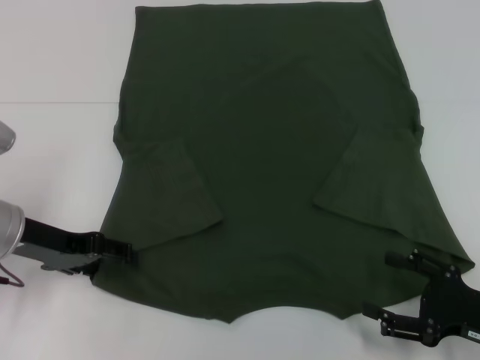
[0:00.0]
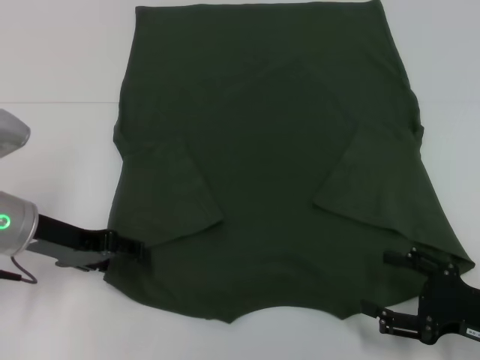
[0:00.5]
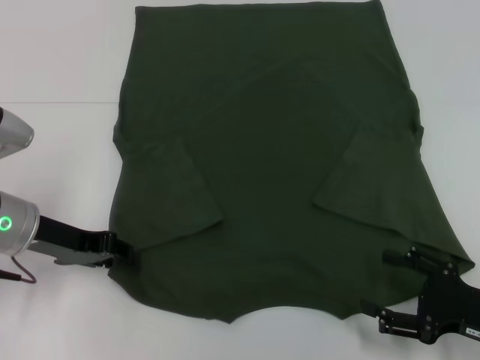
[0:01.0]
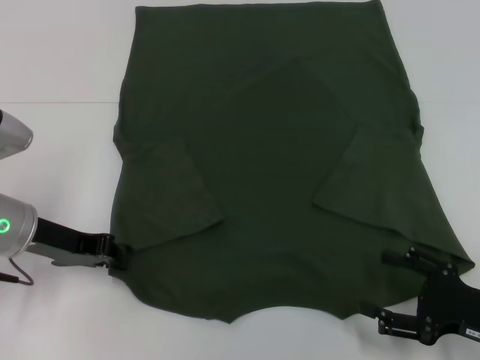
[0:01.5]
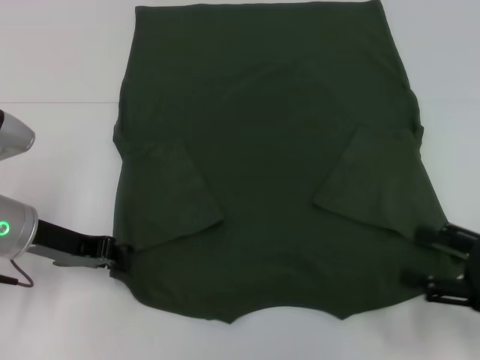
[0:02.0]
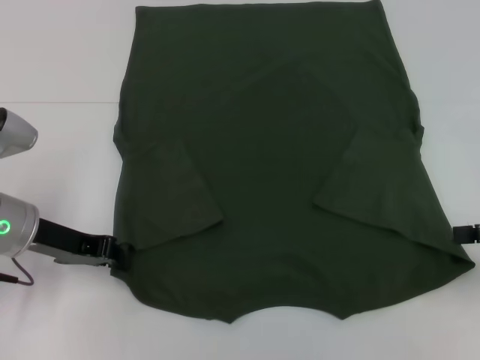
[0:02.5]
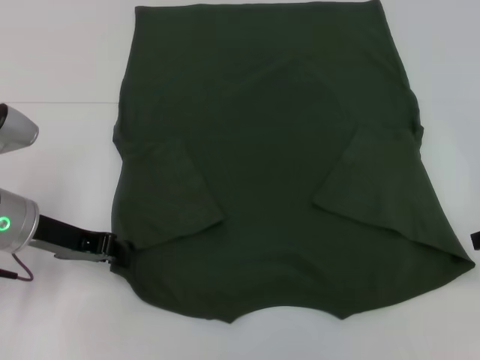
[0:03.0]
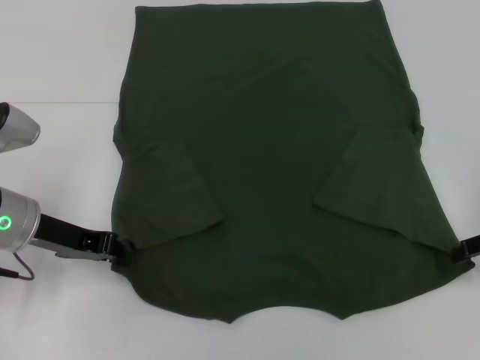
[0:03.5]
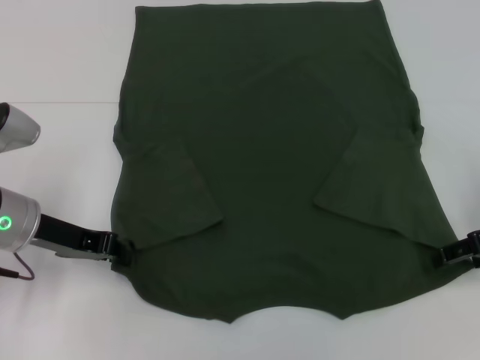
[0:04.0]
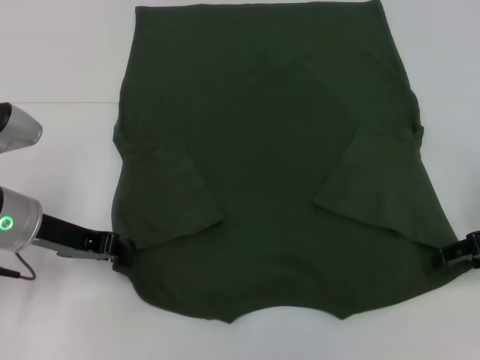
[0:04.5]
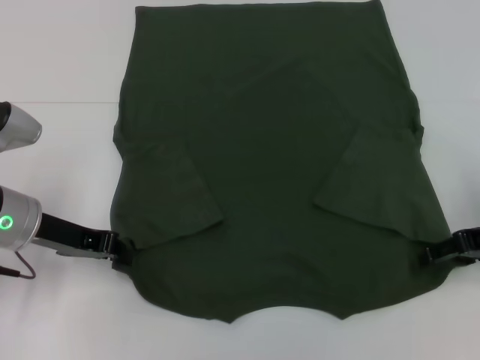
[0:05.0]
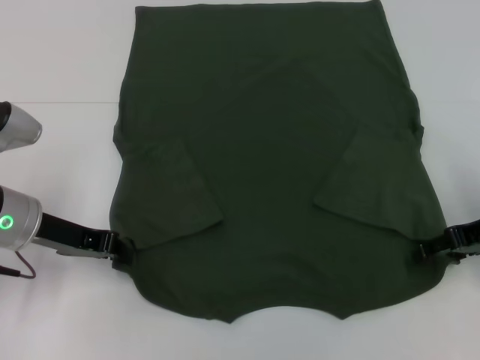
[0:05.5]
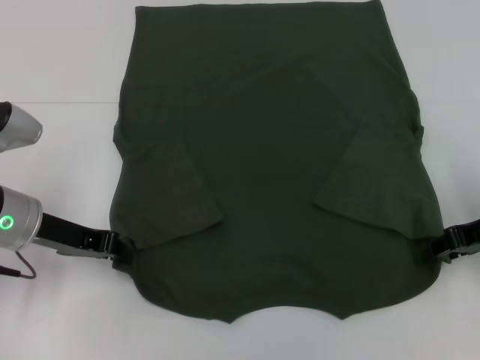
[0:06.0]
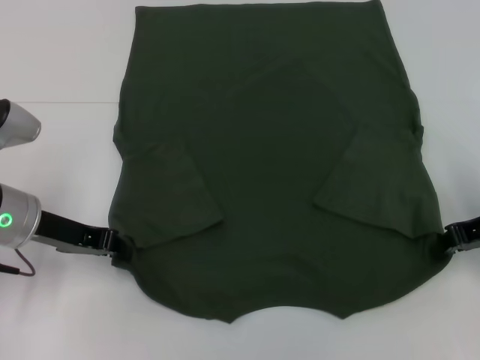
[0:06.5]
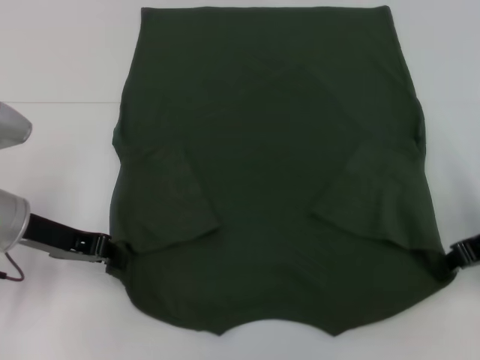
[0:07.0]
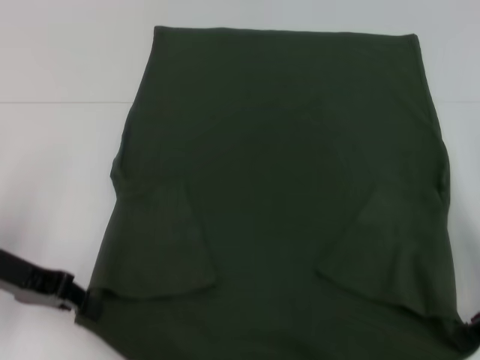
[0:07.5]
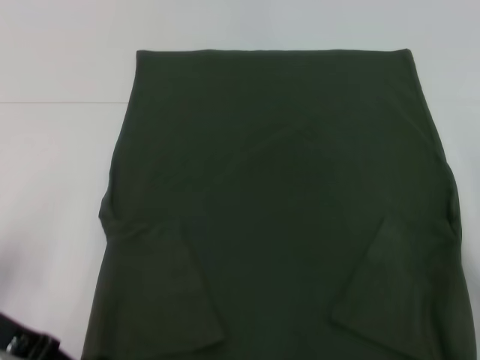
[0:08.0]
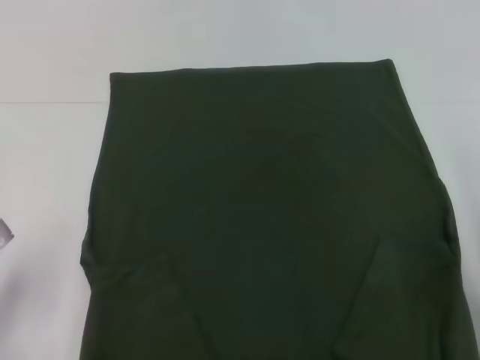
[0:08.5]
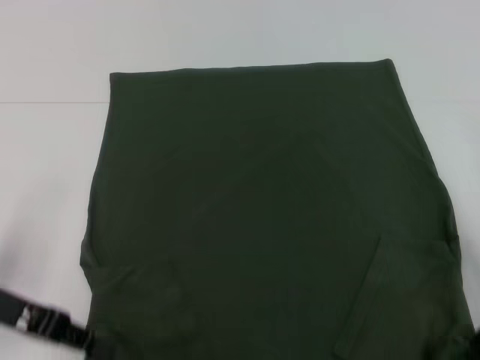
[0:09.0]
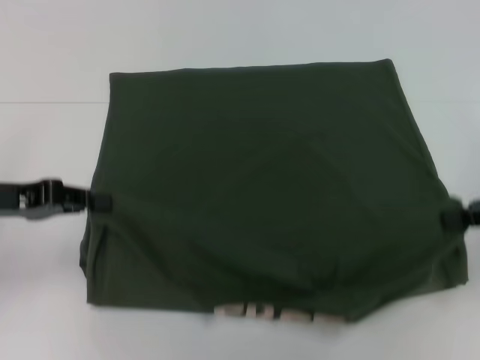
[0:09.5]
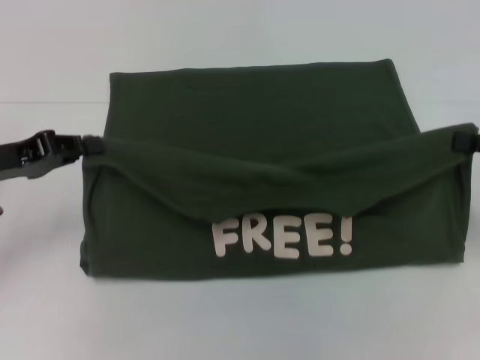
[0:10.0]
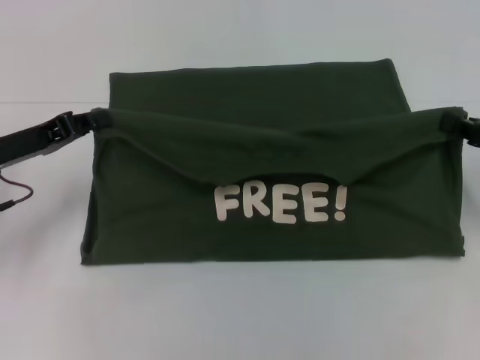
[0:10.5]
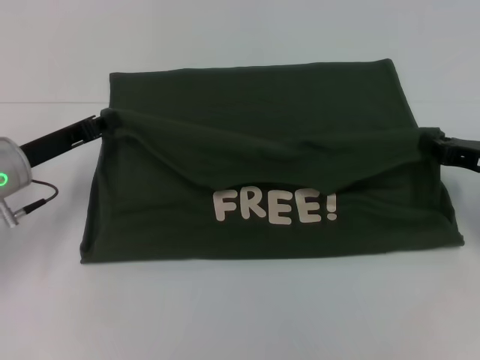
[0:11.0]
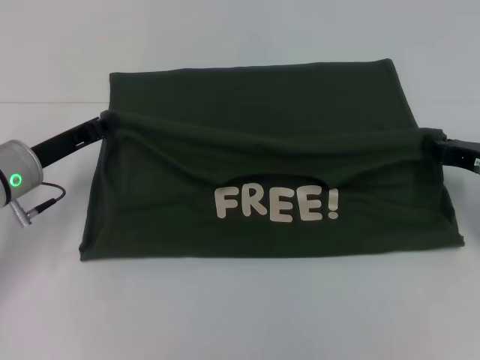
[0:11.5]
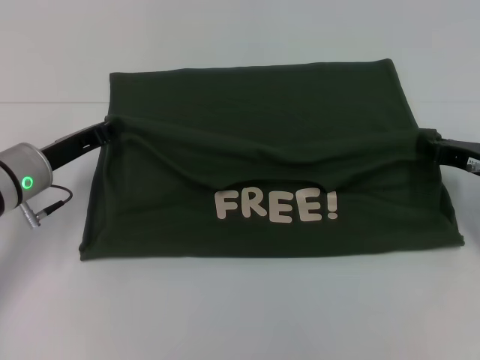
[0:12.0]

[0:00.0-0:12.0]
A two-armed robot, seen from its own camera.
Step, 0:03.0 to 0:06.0: Grab the bottom right corner with your right hand.
0:00.0 to 0:02.0: The left gripper closes. The right gripper moves upward, roughly 5 cm.
0:02.0 to 0:04.0: The right gripper goes some 10 cm forward.
0:04.0 to 0:06.0: The grippers stay close to where they were, moving slightly.
0:06.0 to 0:08.0: Both grippers travel together backward, about 5 cm. The right gripper closes up.
0:08.0 to 0:10.0: The left gripper shifts some 5 cm forward. The right gripper is displaced to the right by roughly 5 cm.
0:10.0 to 0:12.0: The right gripper is displaced downward and to the left by roughly 10 cm. Meanwhile the left gripper travels to the right and downward by about 10 cm.

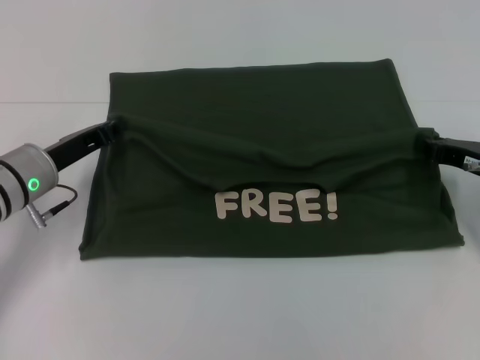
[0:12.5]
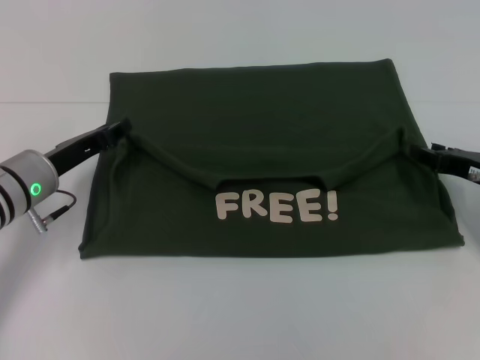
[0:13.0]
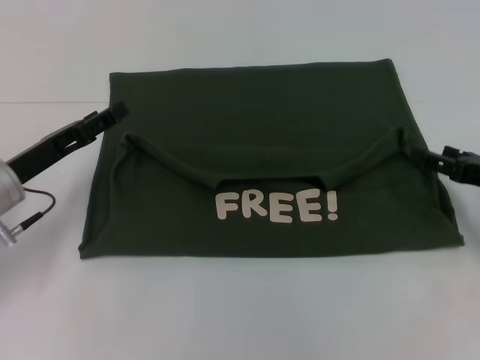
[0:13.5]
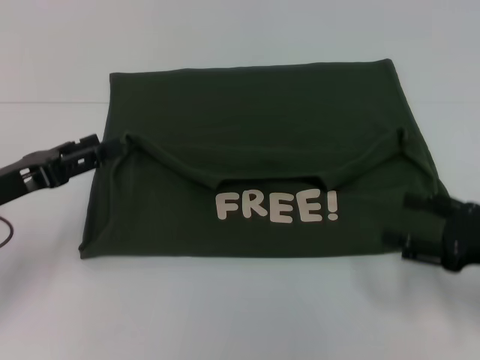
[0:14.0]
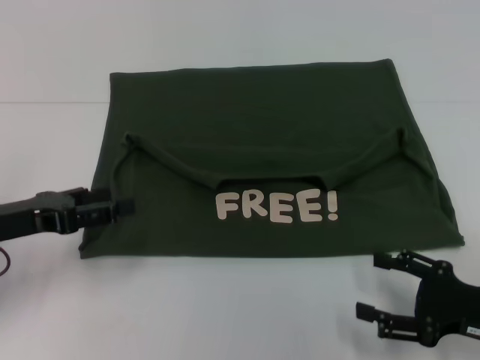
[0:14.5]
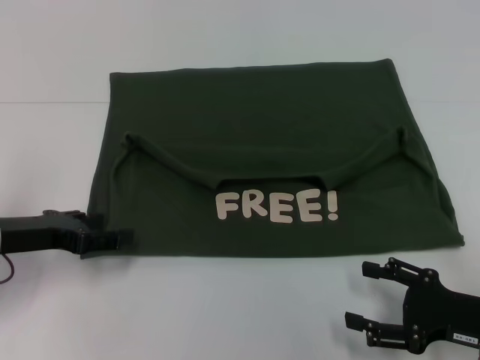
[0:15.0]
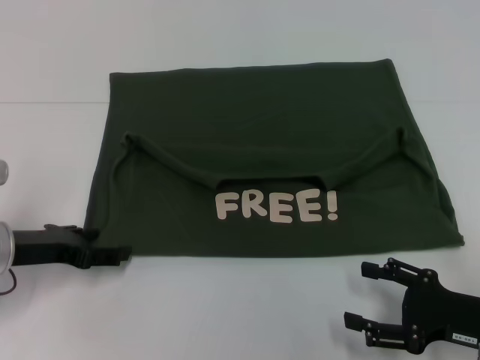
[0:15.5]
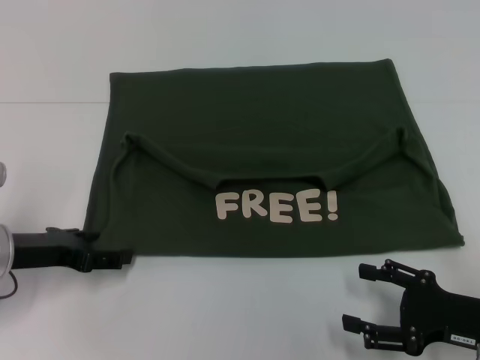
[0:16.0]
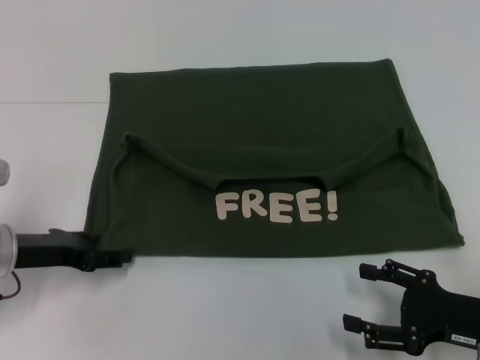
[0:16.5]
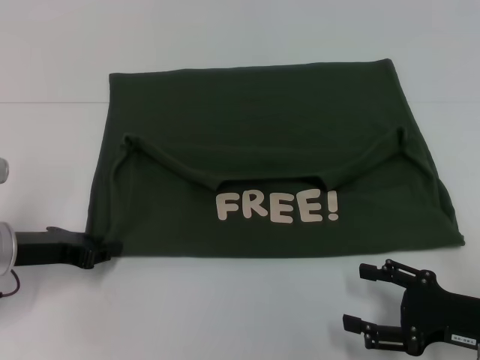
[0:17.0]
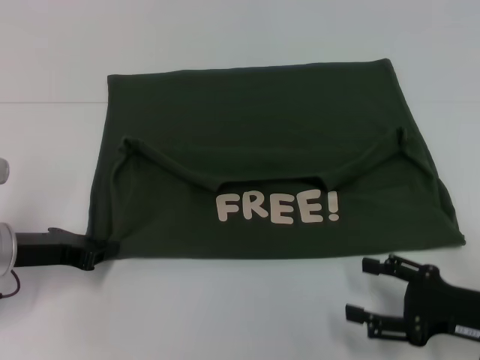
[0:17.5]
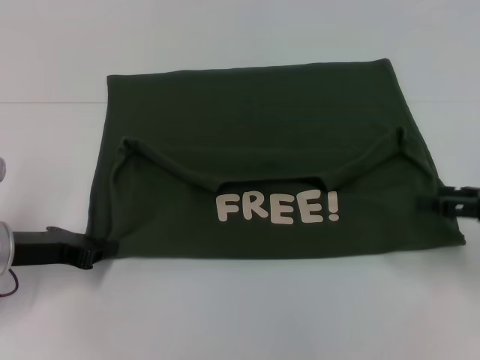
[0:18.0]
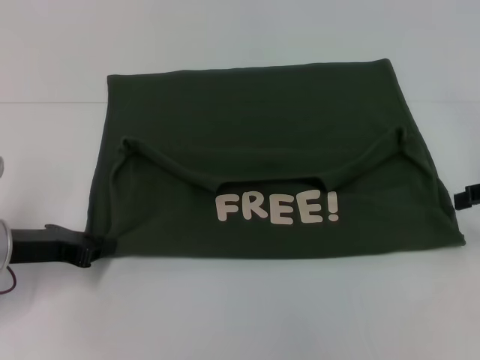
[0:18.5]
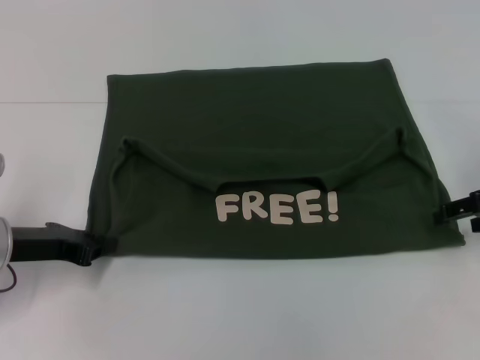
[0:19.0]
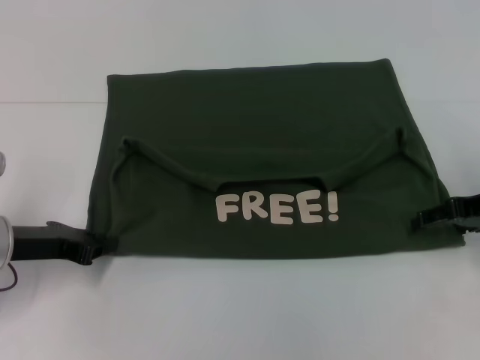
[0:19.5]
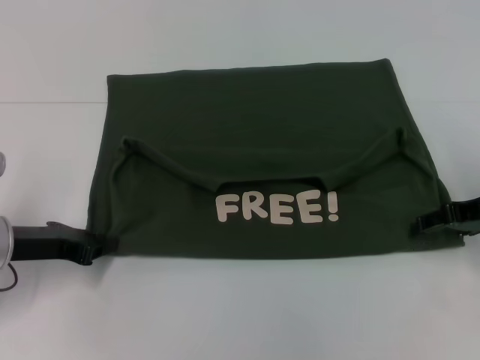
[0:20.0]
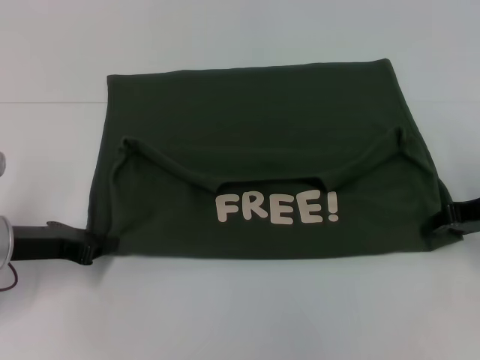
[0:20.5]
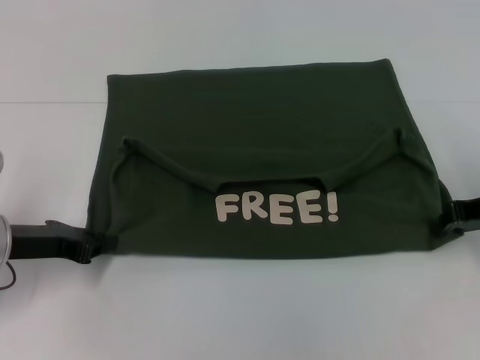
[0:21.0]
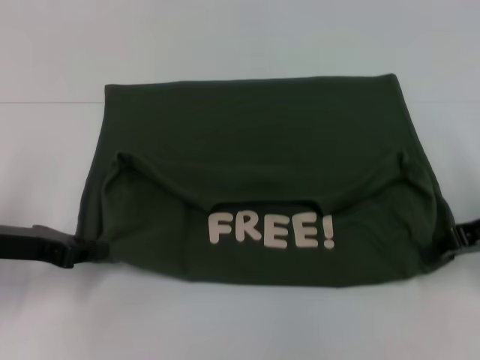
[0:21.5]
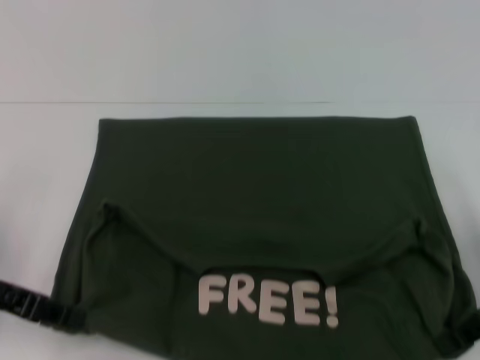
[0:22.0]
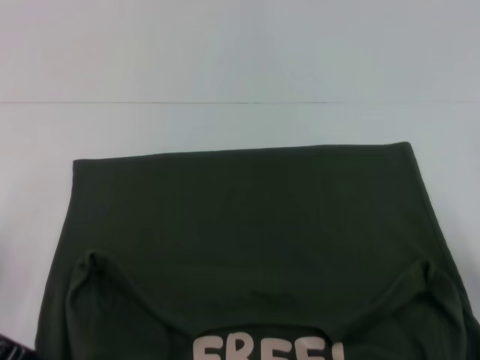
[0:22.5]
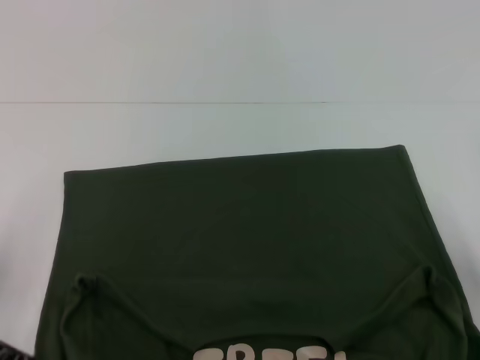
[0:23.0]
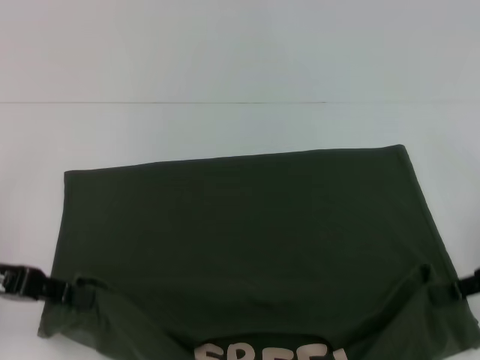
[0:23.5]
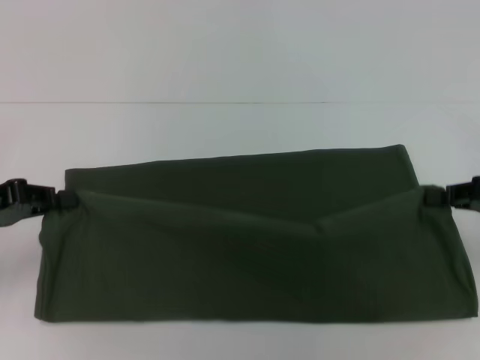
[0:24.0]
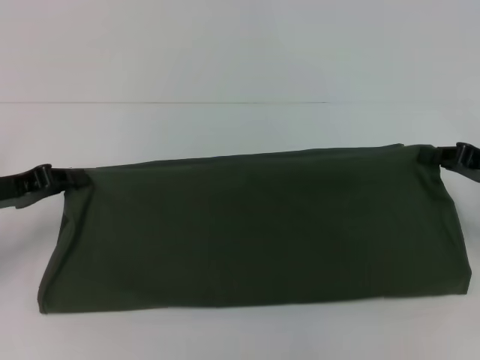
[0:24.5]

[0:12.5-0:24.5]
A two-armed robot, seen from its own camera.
Step, 0:13.5 to 0:23.0: Pull the clothes with your left hand.
Step, 0:13.5 to 0:23.0: Pull the clothes with your right hand.
0:12.5 to 0:14.5: The left gripper goes about 10 cm backward and to the left, and opens its fingers; the right gripper travels backward by roughly 15 cm, and opens its fingers.
0:16.5 to 0:18.5: The right gripper goes about 20 cm upward, forward and to the right. The left gripper closes.
0:18.5 to 0:20.5: The right gripper shifts by roughly 5 cm, and closes up.
0:20.5 to 0:22.5: The right gripper is displaced backward by approximately 10 cm. The left gripper is displaced backward and upward by some 10 cm.
0:22.5 to 0:24.5: Both grippers travel together forward, about 5 cm.

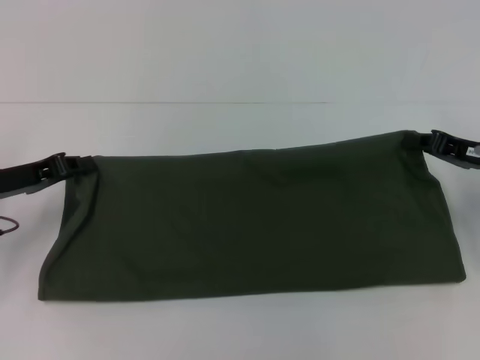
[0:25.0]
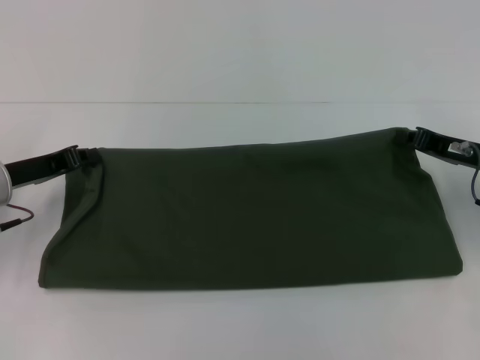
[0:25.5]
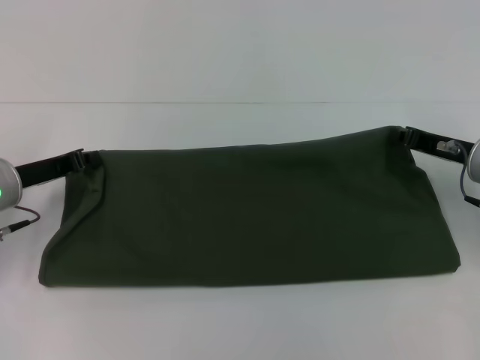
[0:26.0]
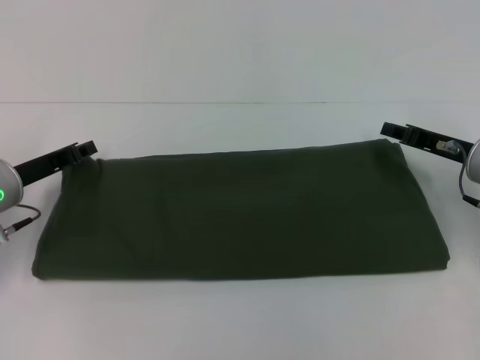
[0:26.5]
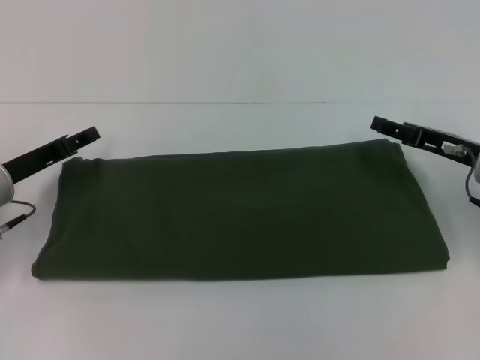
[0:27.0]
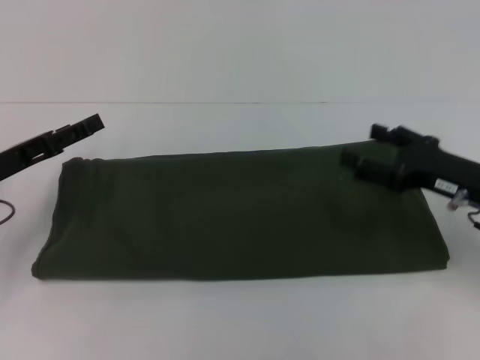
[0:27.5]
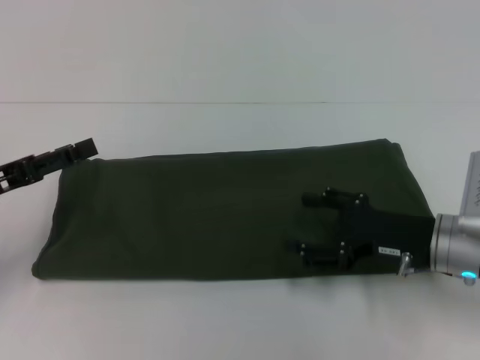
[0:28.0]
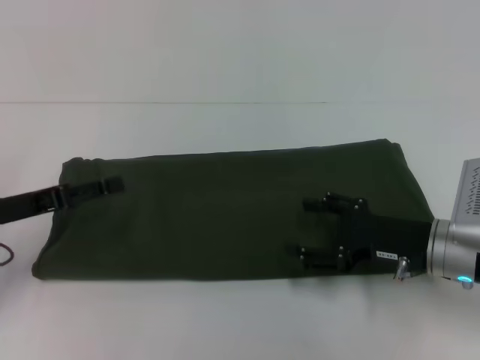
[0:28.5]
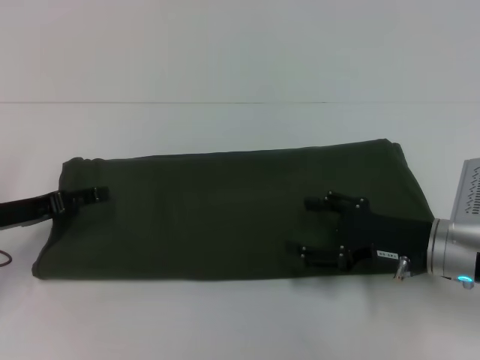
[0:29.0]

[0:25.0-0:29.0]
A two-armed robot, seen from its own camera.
0:25.0 to 0:27.0: The left gripper opens up, while the right gripper opens.
0:27.0 to 0:29.0: The right gripper travels backward and to the left by approximately 10 cm. Meanwhile the left gripper opens.
